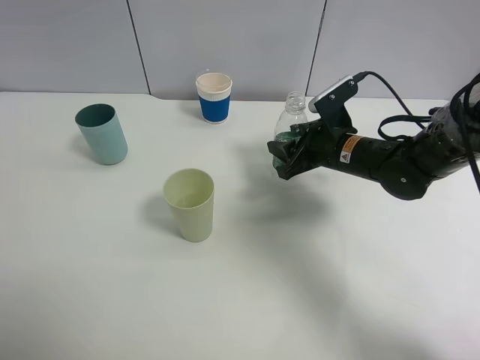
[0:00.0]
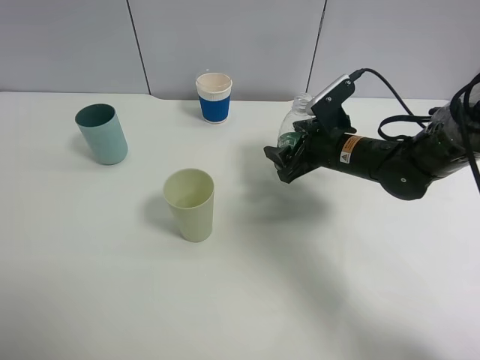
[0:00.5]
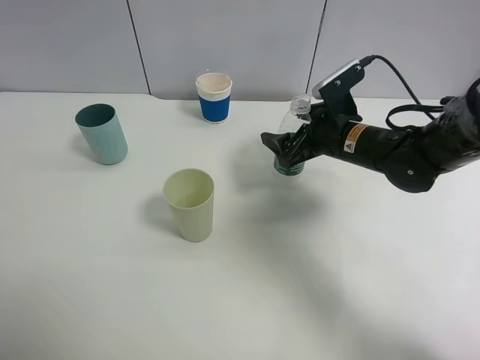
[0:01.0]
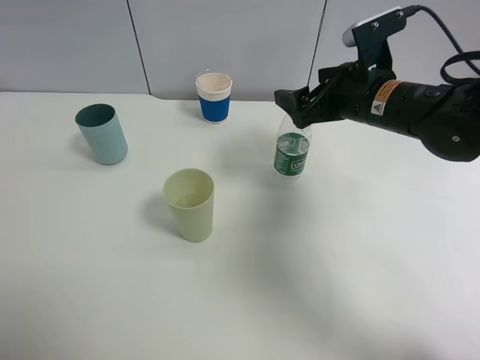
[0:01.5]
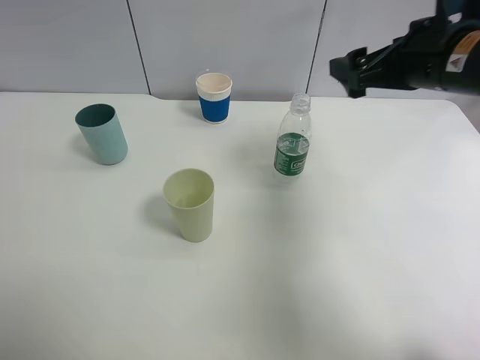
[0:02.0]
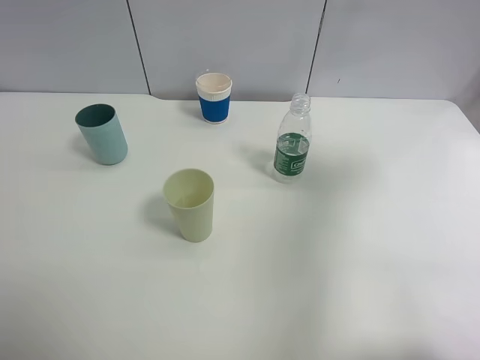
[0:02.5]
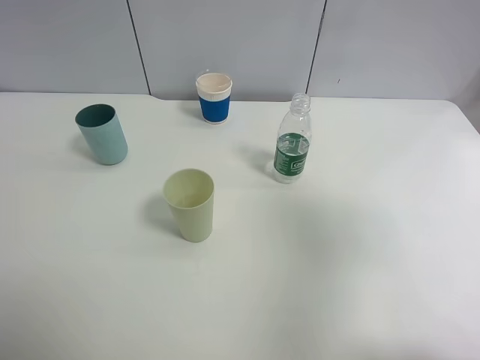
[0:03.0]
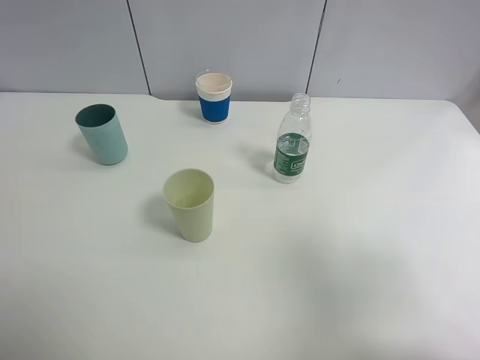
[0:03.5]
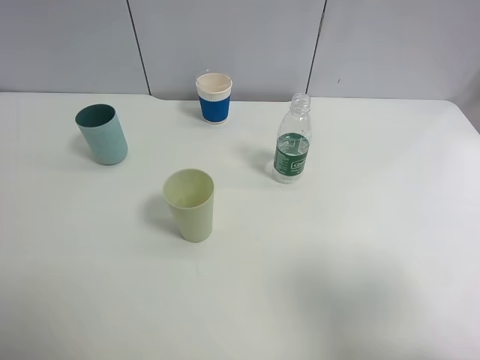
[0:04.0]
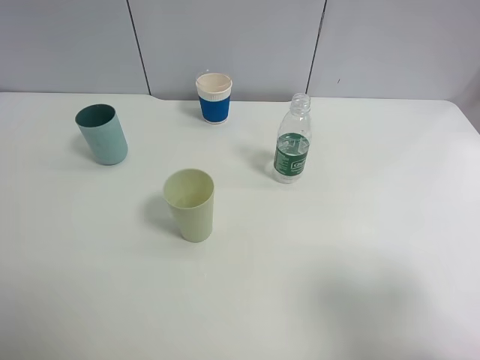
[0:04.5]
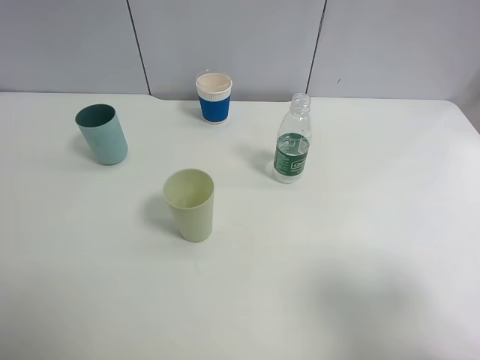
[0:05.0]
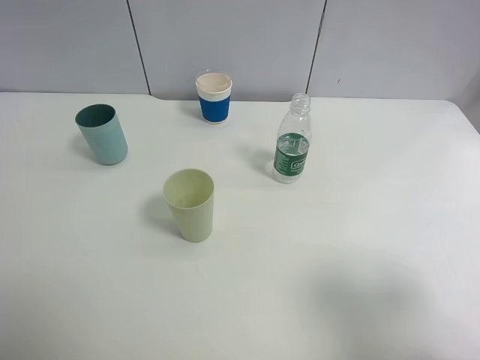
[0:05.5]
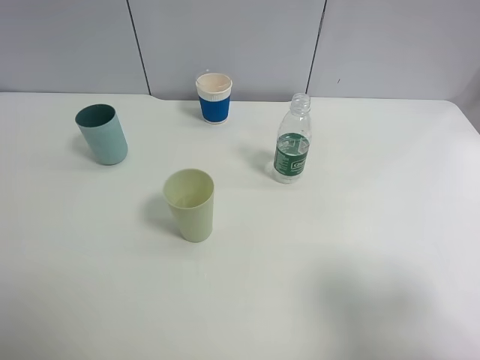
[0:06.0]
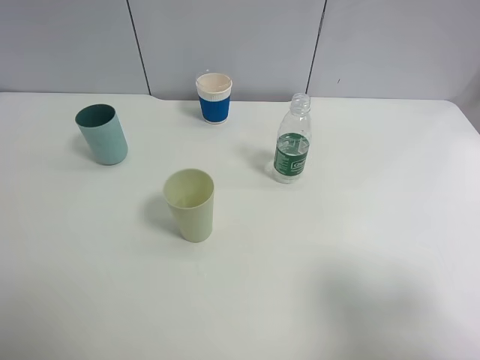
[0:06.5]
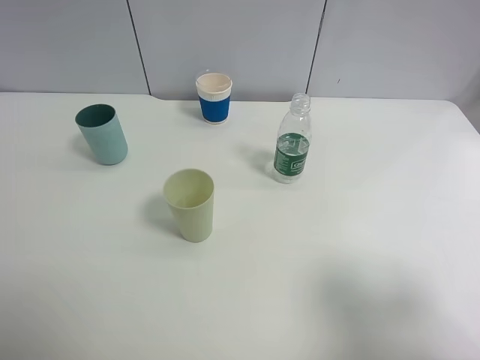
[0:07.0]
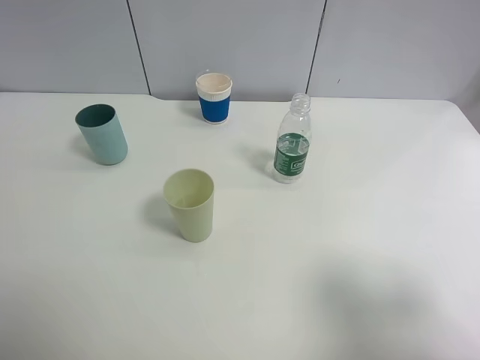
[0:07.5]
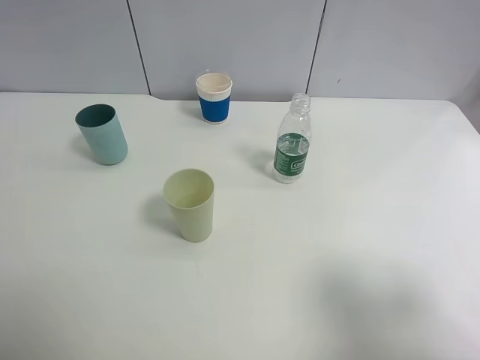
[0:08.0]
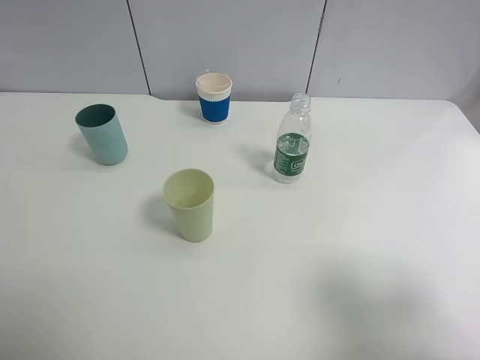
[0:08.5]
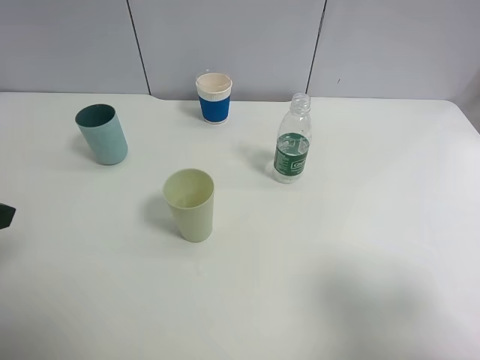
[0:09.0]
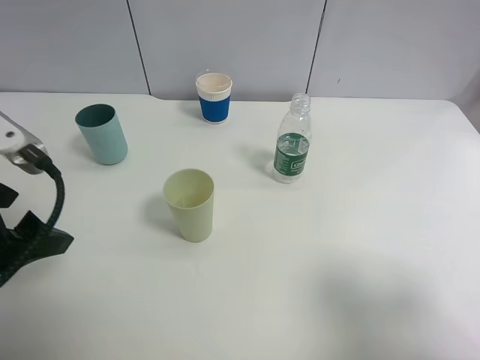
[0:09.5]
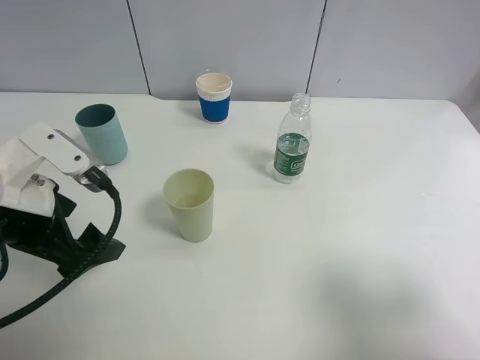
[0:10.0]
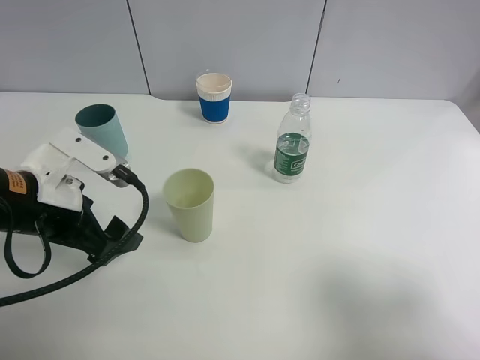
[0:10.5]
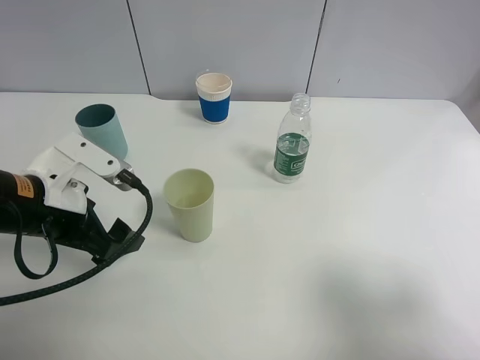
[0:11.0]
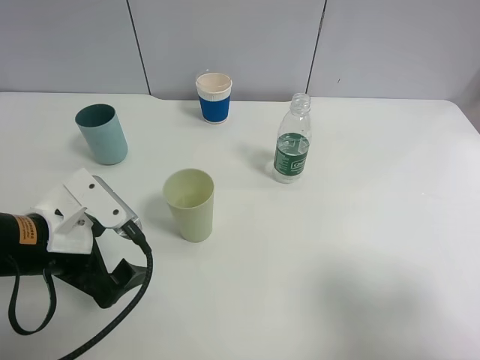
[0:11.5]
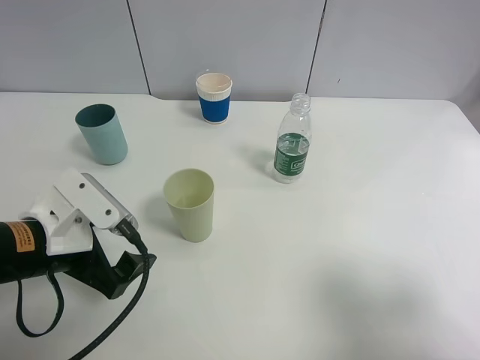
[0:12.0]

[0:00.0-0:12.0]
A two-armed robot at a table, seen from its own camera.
Task of the whole recording: use a clamp to hold the bottle of the drink, pour the beverage into a random cup, then clamp the cup containing the drink and pour the drink into another random cup.
0:00.0 to 0:02.0: The right gripper moves upward, roughly 15 cm, and opens.
0:02.0 to 0:04.0: The right gripper shifts approximately 30 cm backward.
0:06.0 to 0:08.0: Neither gripper changes place.
0:08.0 to 0:10.0: The left gripper is displaced forward, to the right and downward by some 20 cm.
0:10.0 to 0:12.0: The left gripper is displaced downward by roughly 5 cm.

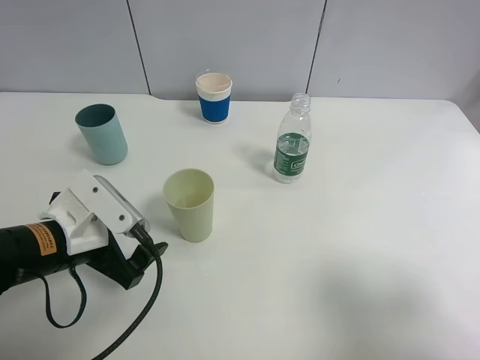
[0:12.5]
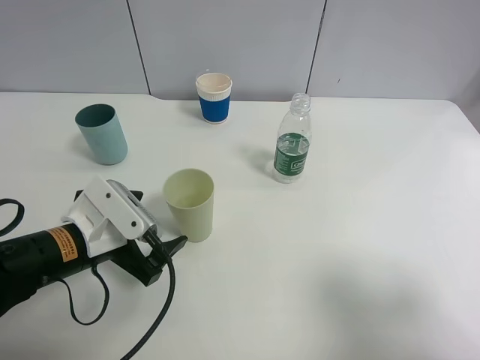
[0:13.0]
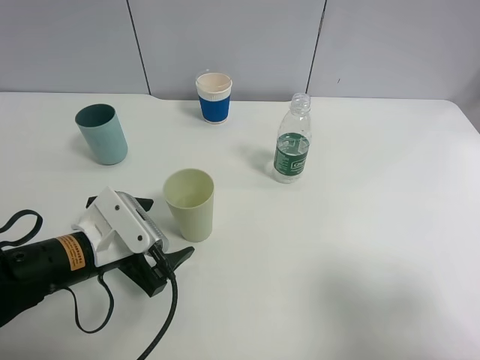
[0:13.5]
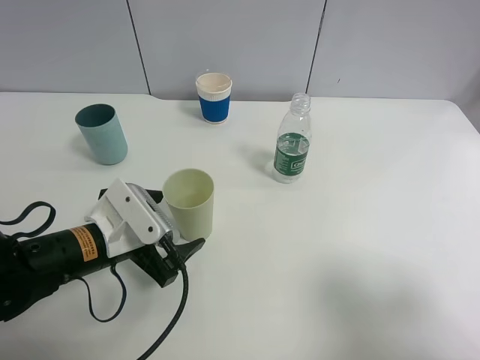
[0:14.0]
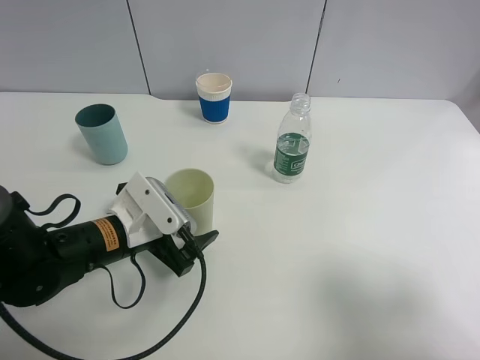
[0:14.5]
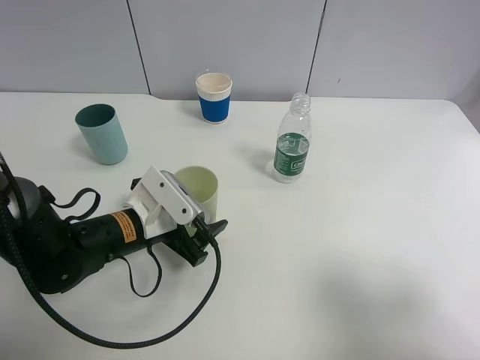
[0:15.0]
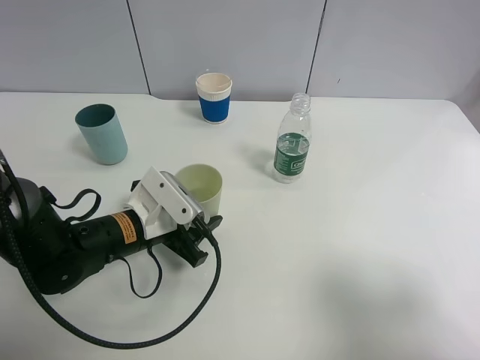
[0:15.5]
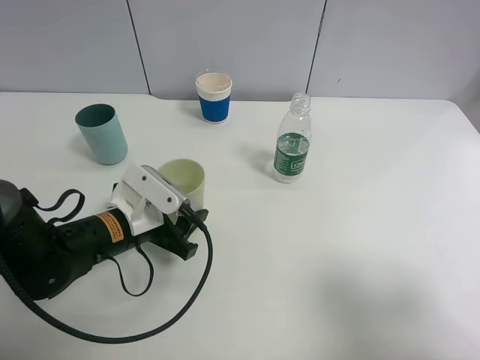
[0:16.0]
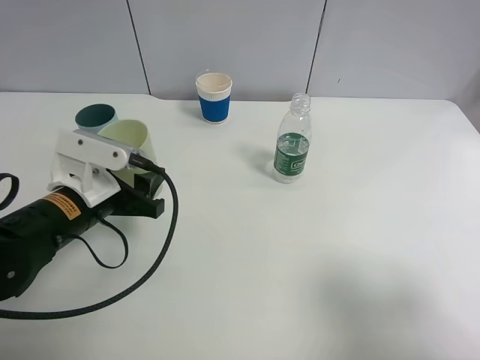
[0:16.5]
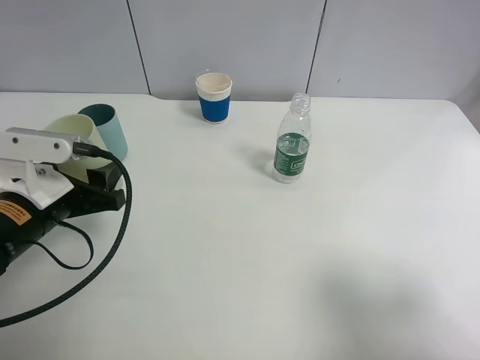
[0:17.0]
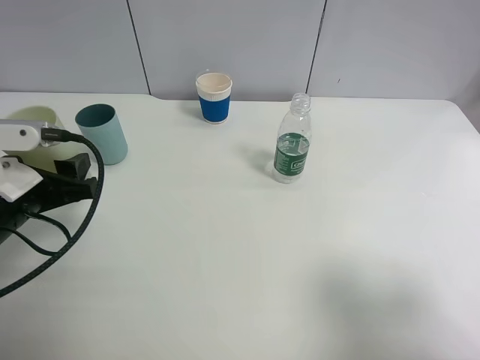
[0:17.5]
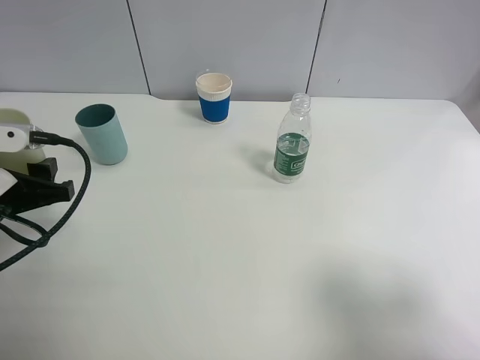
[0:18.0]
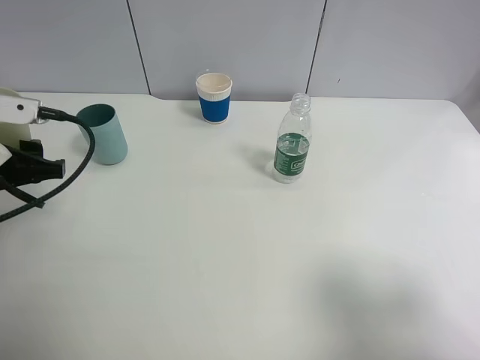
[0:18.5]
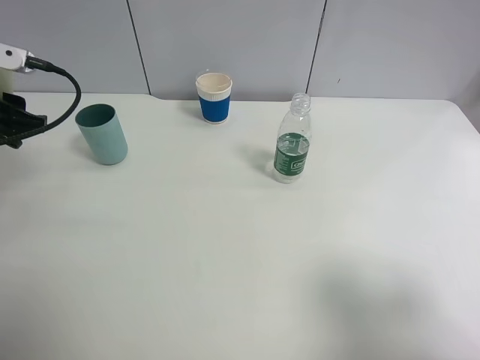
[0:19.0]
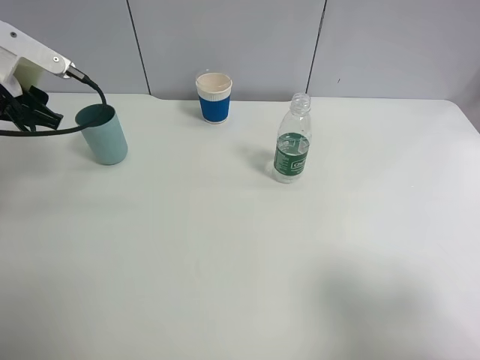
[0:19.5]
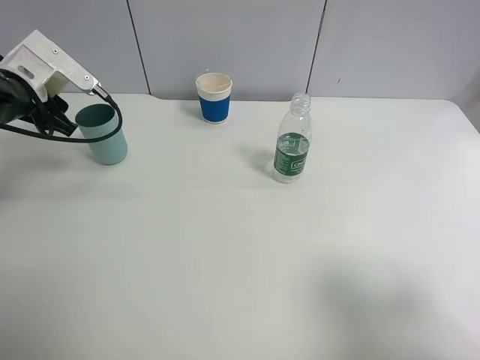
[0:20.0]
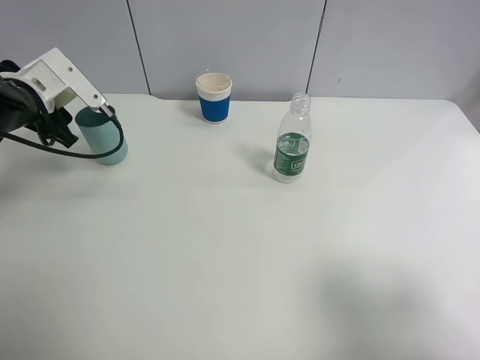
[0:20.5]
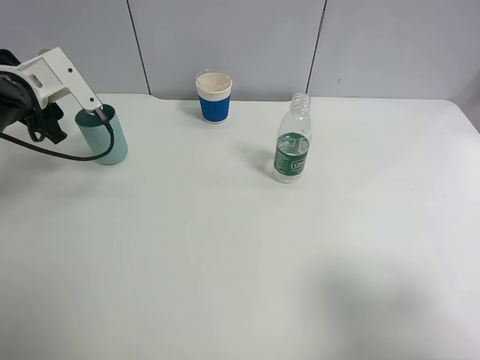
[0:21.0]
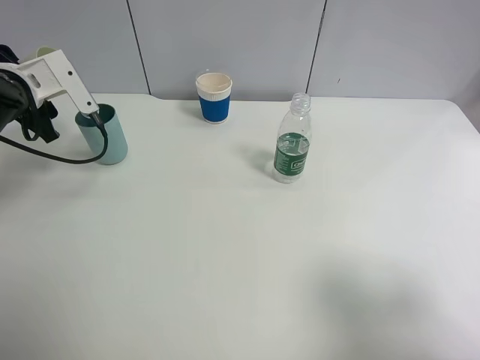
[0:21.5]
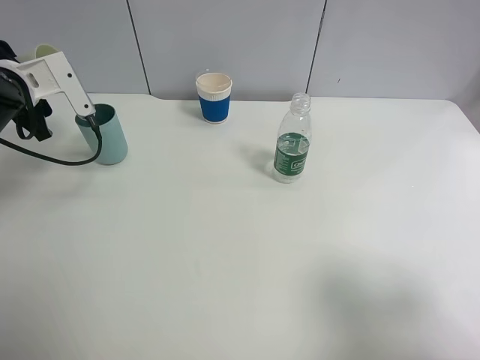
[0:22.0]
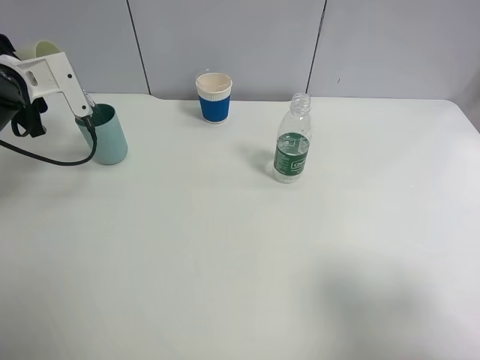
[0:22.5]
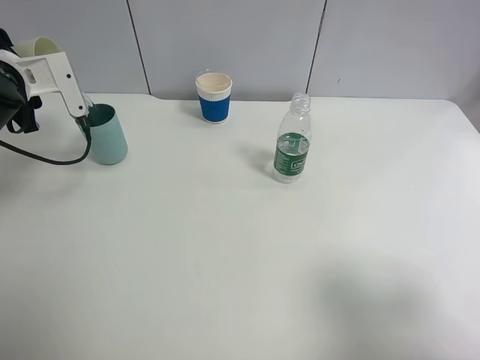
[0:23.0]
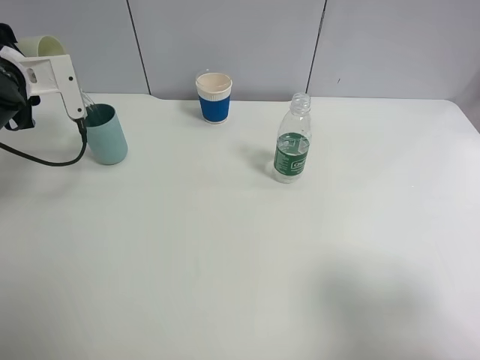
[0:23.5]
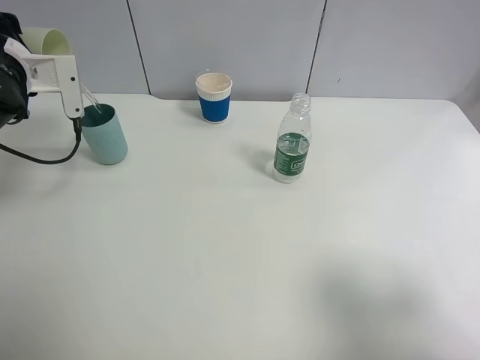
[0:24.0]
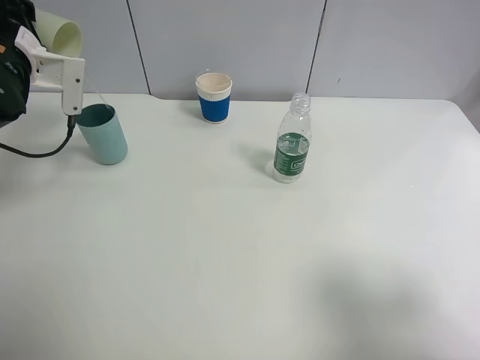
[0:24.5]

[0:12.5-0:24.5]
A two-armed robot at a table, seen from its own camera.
Task of the whole recording: use a clamp to hold the bottle of the drink, pour the beverage into a random cup, then clamp the cup containing the drink and pour the drink into another random cup.
Step, 0:12.5 to 0:16.5: Pick up the green plastic cup bottle with left gripper.
0:12.5 to 0:14.5: The left gripper shifts by roughly 5 cm.
0:14.5 to 0:16.5: The left gripper travels upward by some 5 cm, and closes.
0:16.5 to 0:18.5: The left gripper heads to the left and upward, covering some 10 cm.
0:18.5 to 0:20.5: The left gripper moves forward, some 15 cm.

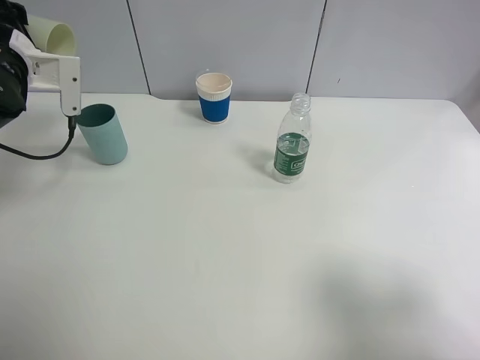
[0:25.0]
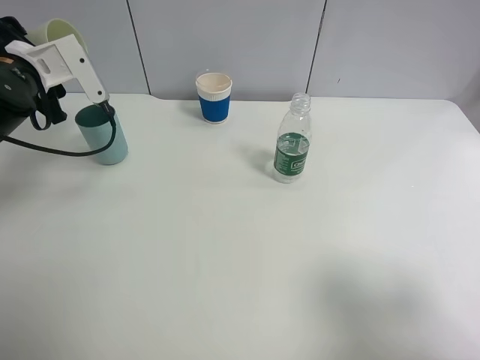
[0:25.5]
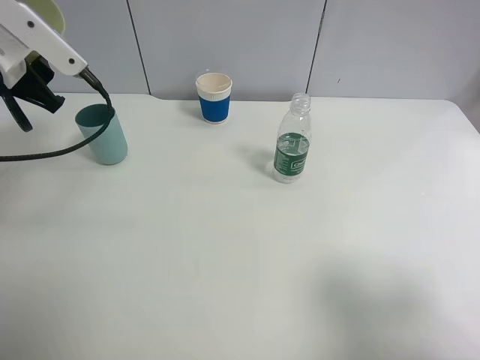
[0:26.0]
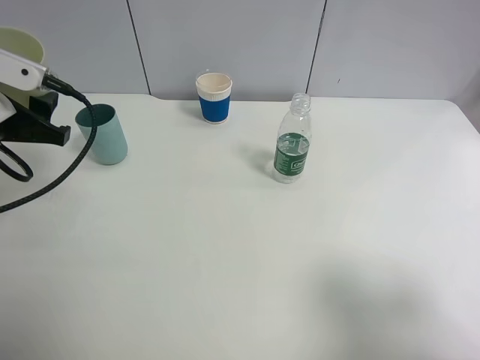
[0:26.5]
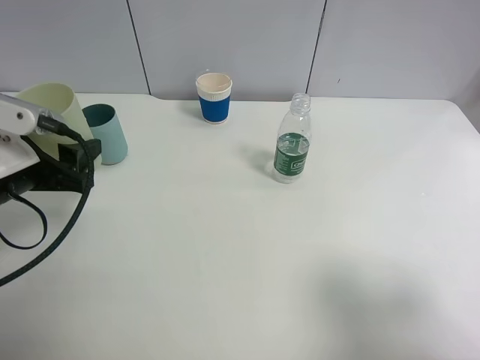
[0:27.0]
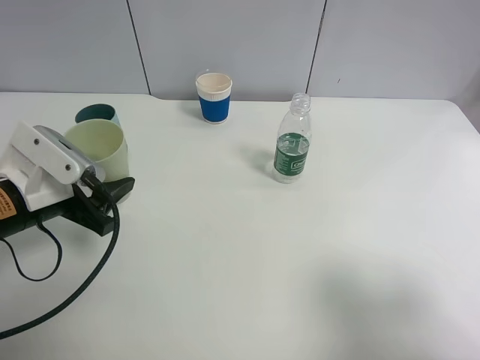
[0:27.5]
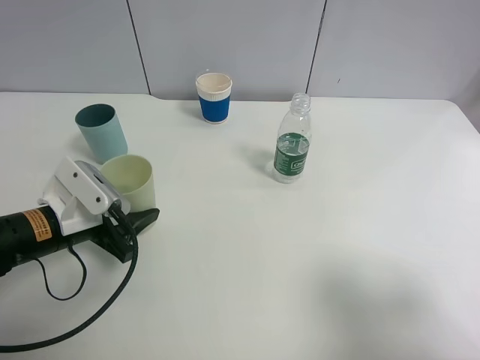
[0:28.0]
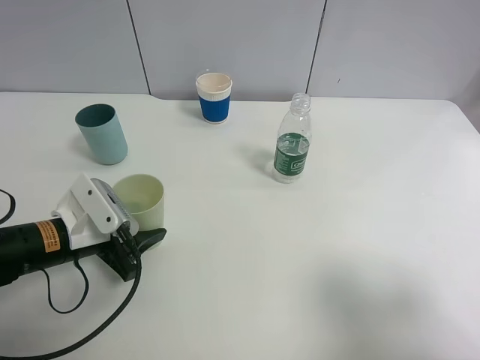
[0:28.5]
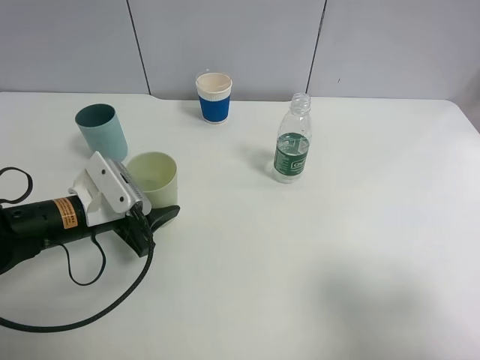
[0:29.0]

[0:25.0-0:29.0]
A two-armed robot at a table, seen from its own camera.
Task of the whole recording: use a clamp to hold the bottle of the drink, pour the beverage into a random cup, then clamp the cup containing the drink and pour the drink into another random cup.
0:25.0 to 0:27.0: The left gripper goes roughly 15 cm backward.
0:27.0 to 0:29.0: The left gripper travels downward and to the right by about 10 cm.
